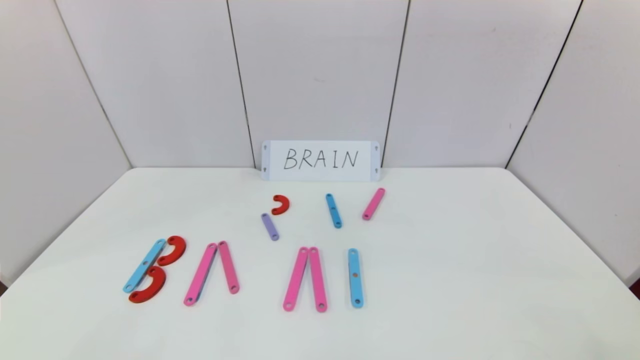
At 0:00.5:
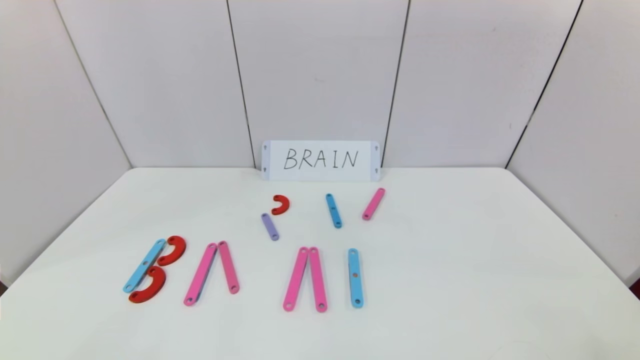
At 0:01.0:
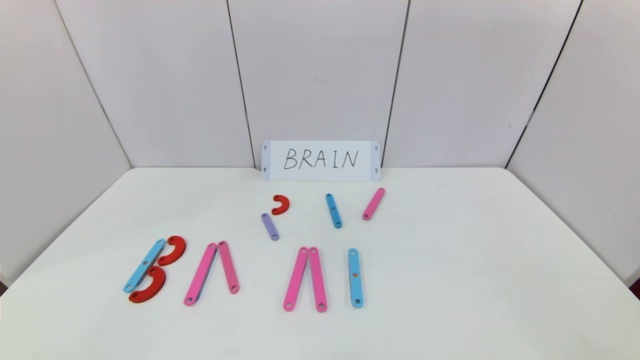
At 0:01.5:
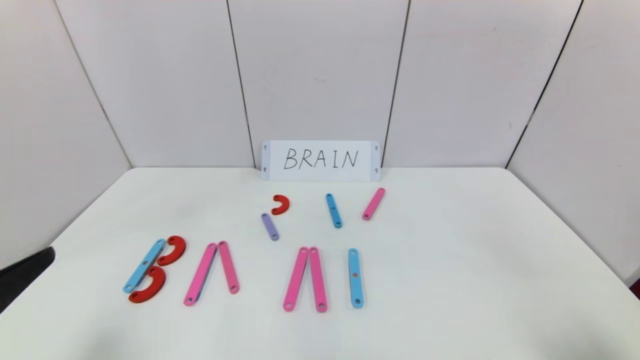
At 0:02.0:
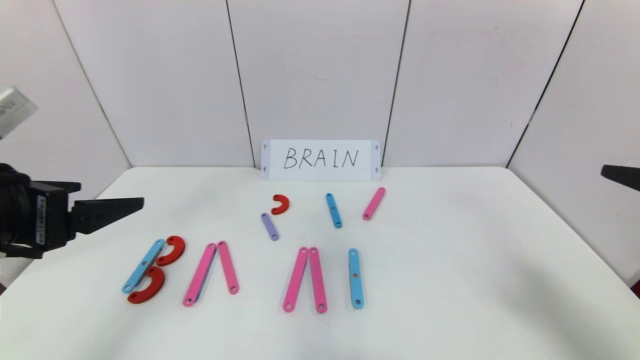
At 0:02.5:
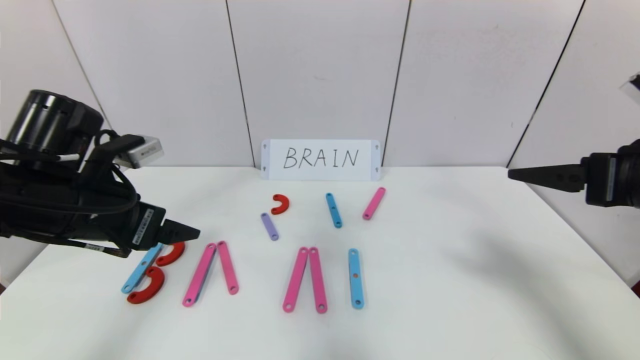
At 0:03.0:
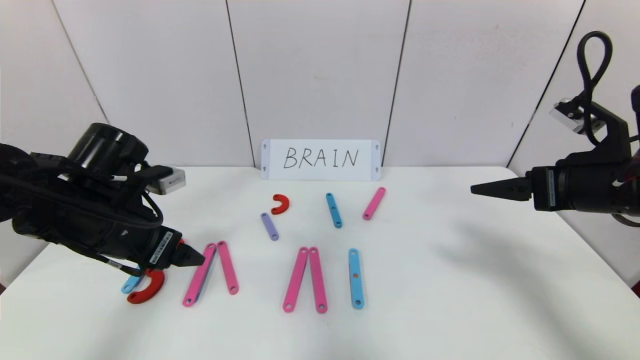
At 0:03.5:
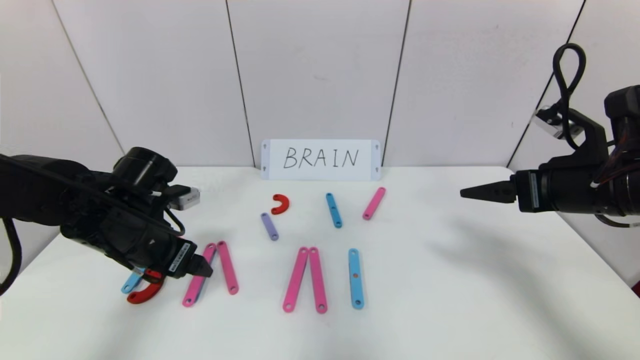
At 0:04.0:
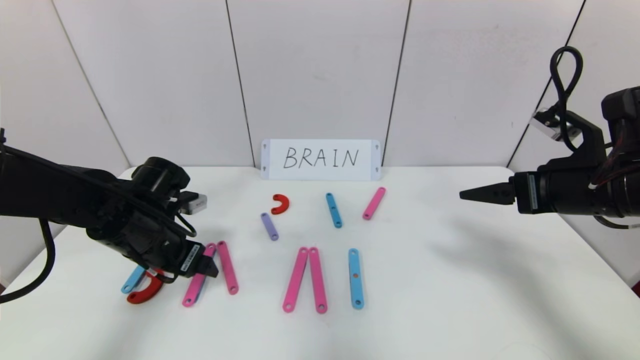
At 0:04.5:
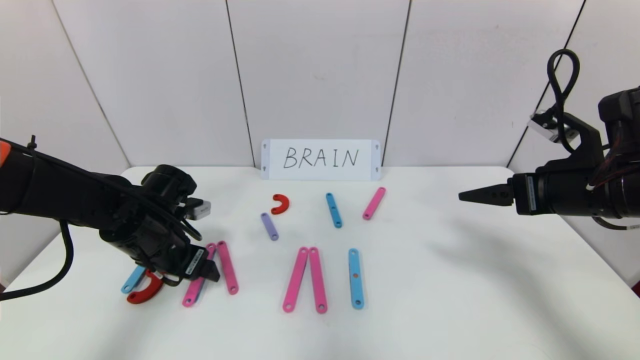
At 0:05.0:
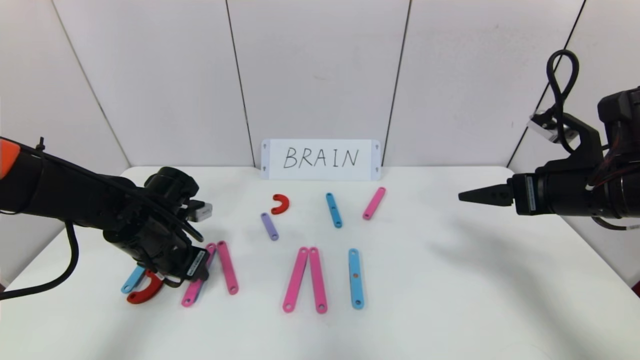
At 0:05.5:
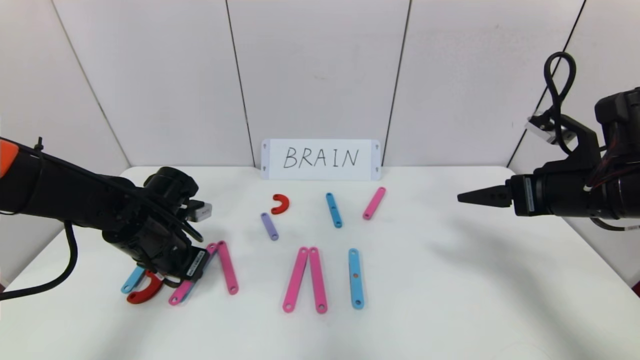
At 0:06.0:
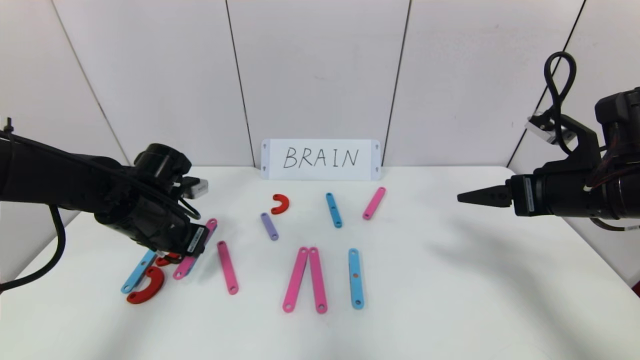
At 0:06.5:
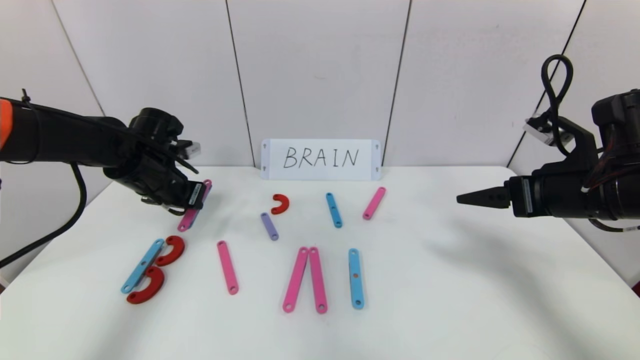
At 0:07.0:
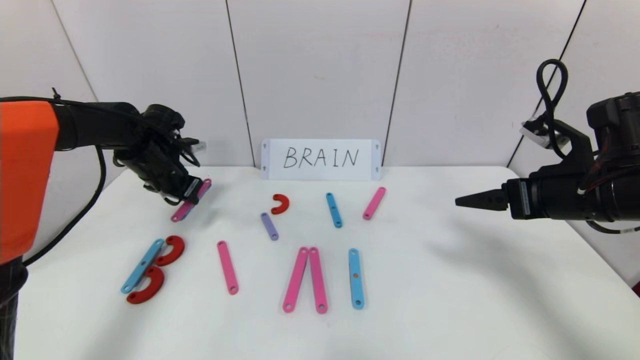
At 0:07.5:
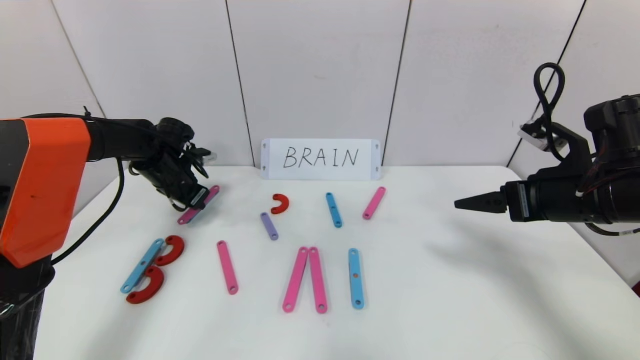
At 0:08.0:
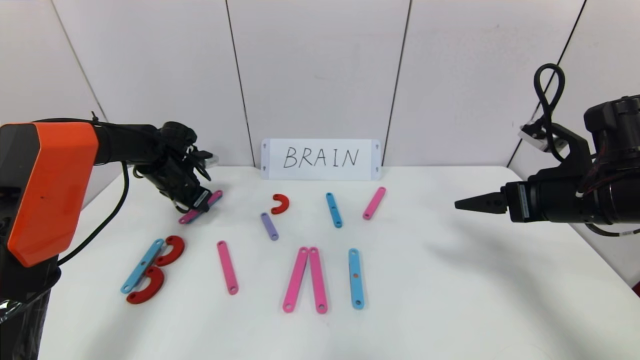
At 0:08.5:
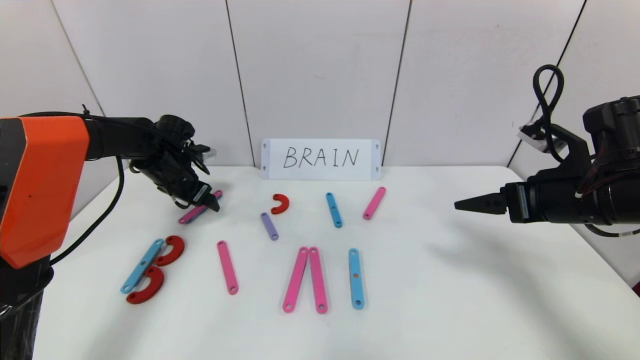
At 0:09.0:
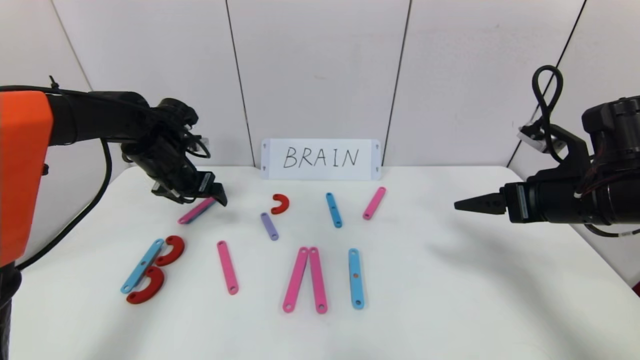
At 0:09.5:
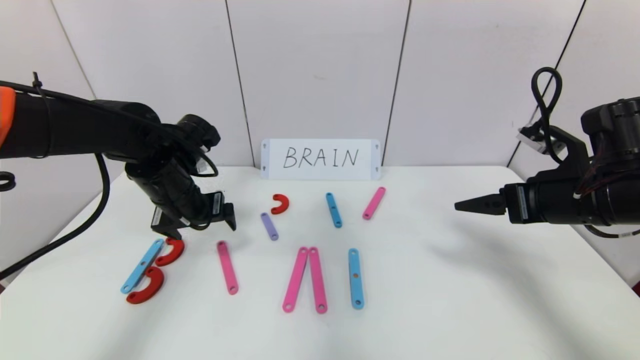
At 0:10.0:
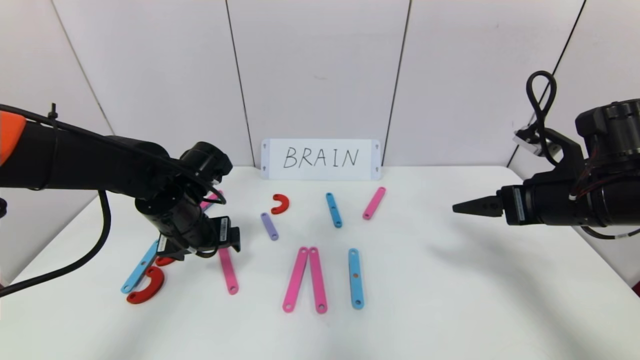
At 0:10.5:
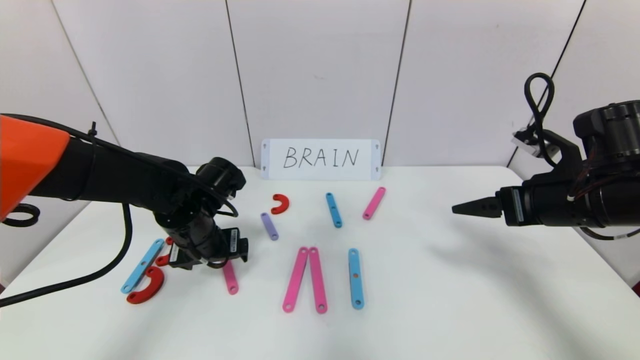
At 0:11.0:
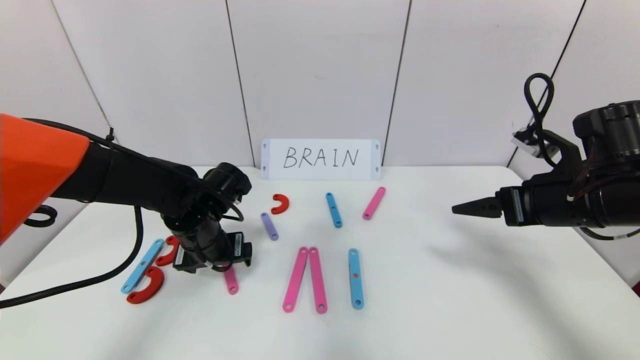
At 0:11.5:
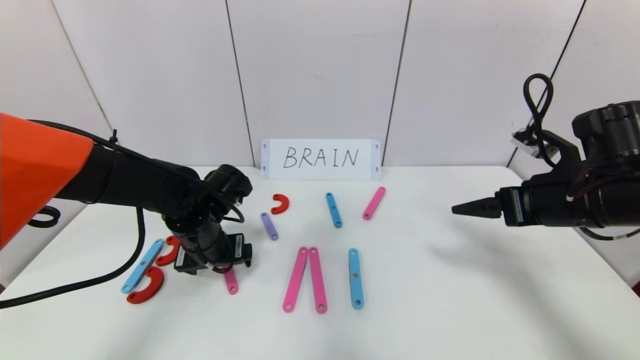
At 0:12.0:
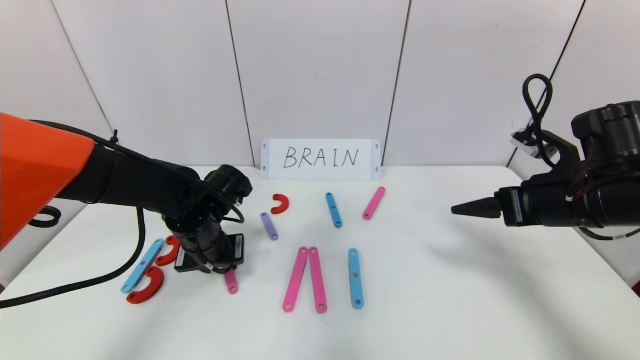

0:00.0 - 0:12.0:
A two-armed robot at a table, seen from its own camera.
Task of the whole recording: rearrange the word baai as brain.
0:00.0 - 0:02.0: The two grippers go roughly 25 cm upward and forward.
0:02.0 - 0:04.0: The right gripper goes roughly 15 cm forward and downward; the left gripper travels downward and forward by roughly 20 cm.
0:04.0 - 0:06.0: The left gripper closes its fingers.
0:06.0 - 0:08.0: The left gripper heads forward, covering about 15 cm.
0:08.0 - 0:10.0: The left gripper moves backward and to the right, roughly 20 cm, and opens up.
0:10.0 - 0:12.0: The left gripper closes up.

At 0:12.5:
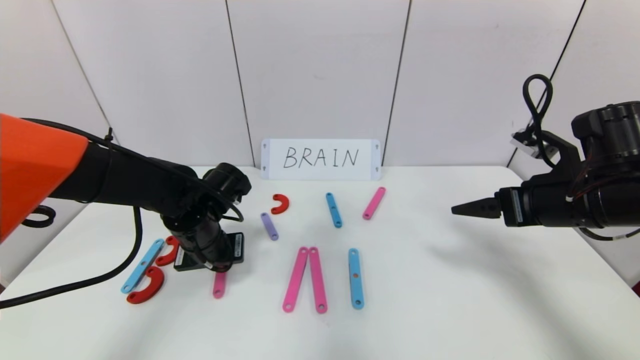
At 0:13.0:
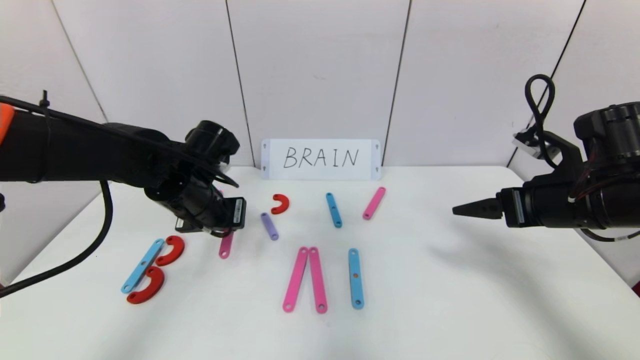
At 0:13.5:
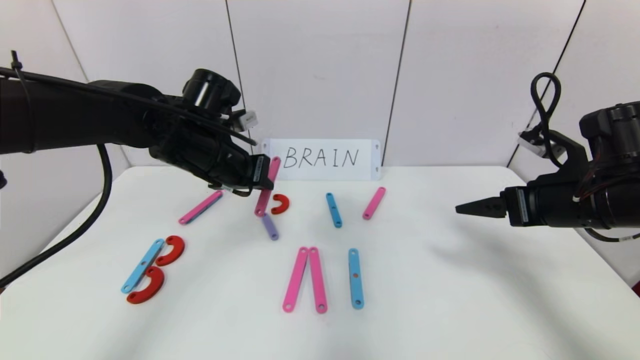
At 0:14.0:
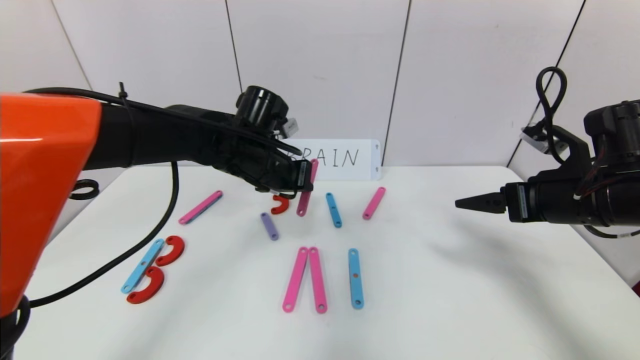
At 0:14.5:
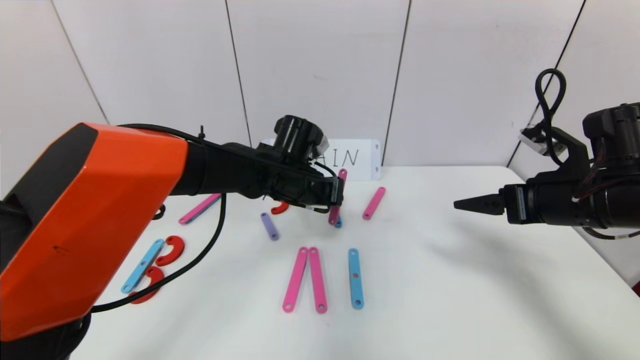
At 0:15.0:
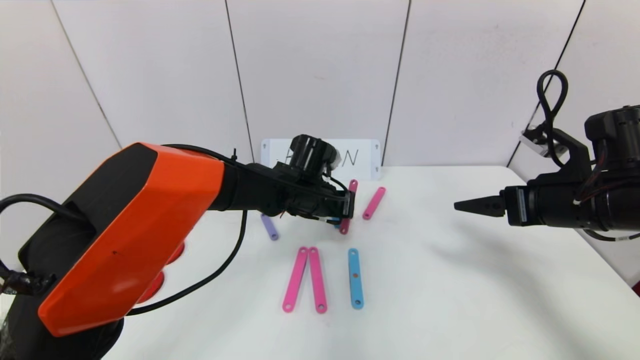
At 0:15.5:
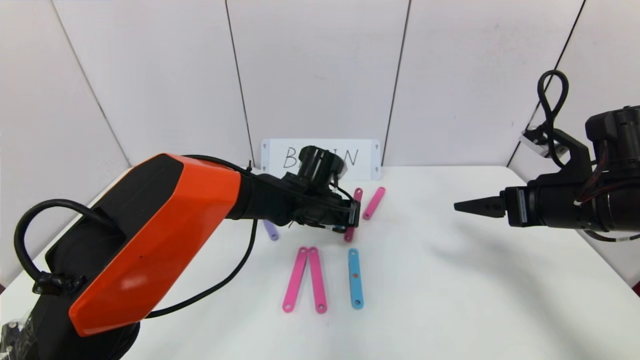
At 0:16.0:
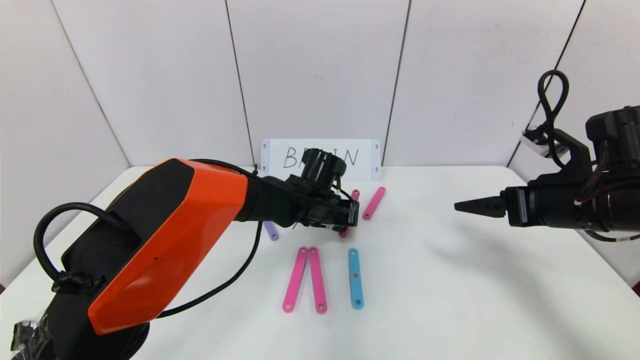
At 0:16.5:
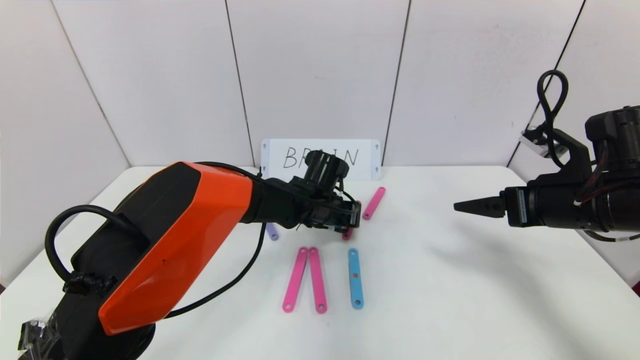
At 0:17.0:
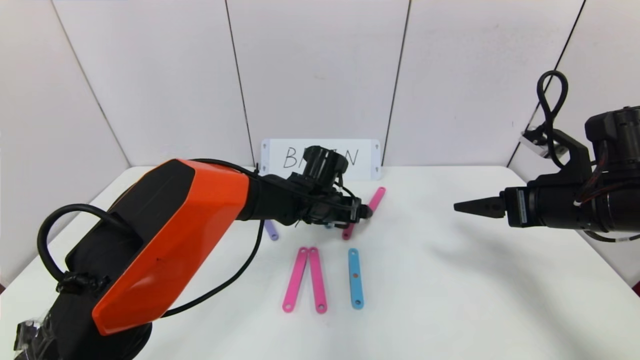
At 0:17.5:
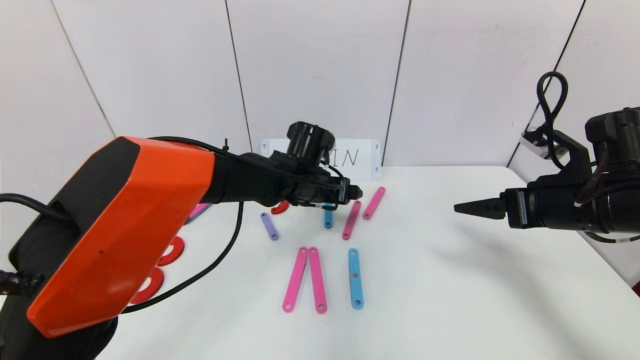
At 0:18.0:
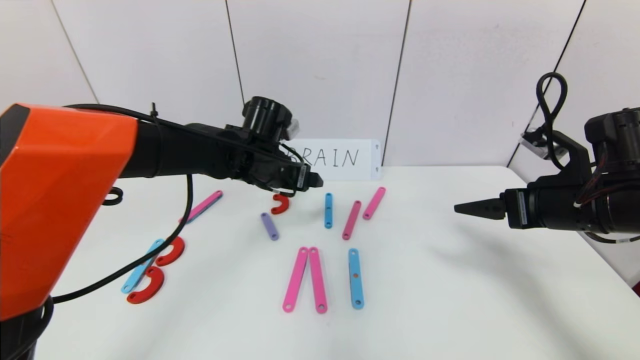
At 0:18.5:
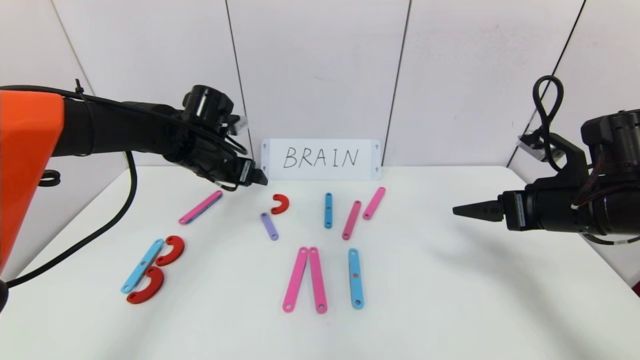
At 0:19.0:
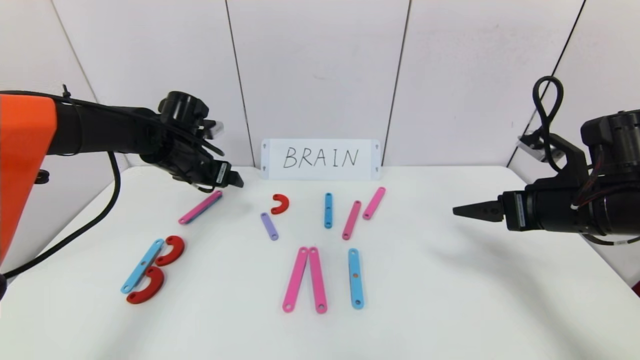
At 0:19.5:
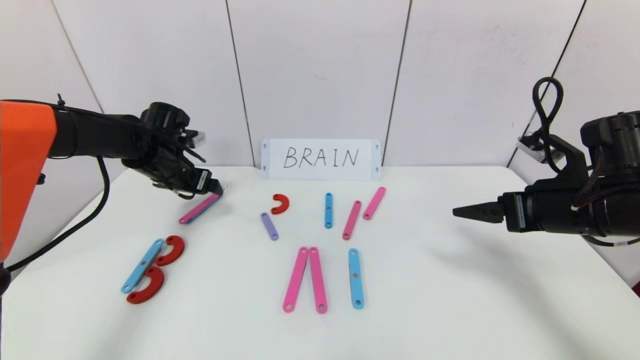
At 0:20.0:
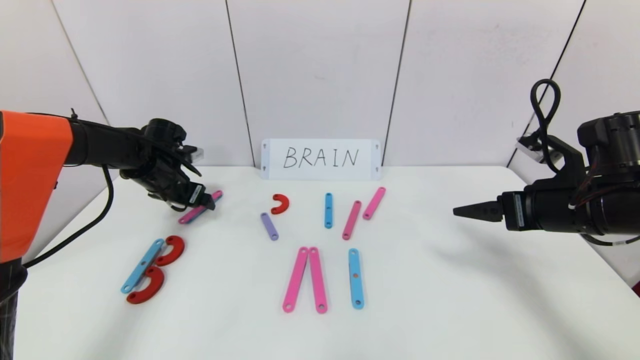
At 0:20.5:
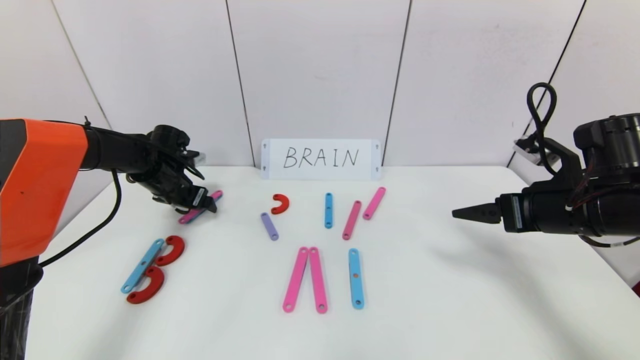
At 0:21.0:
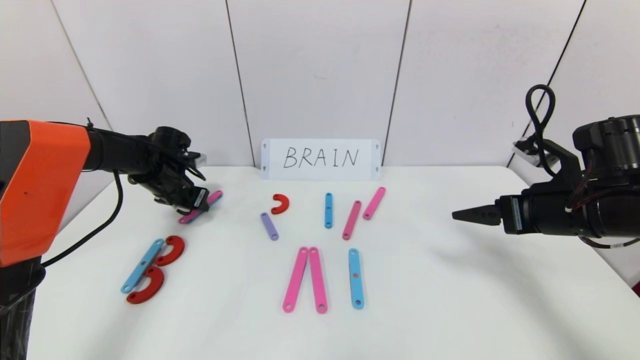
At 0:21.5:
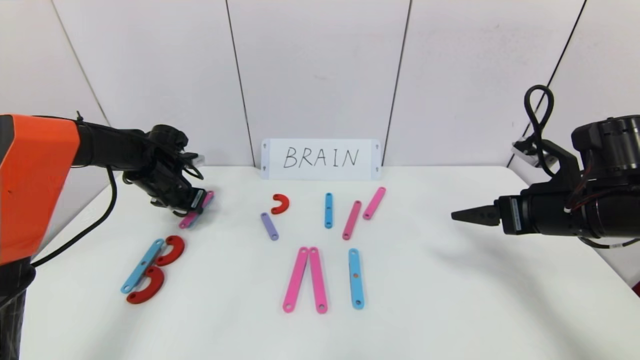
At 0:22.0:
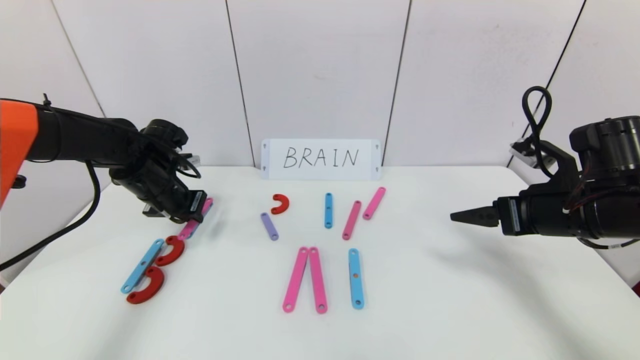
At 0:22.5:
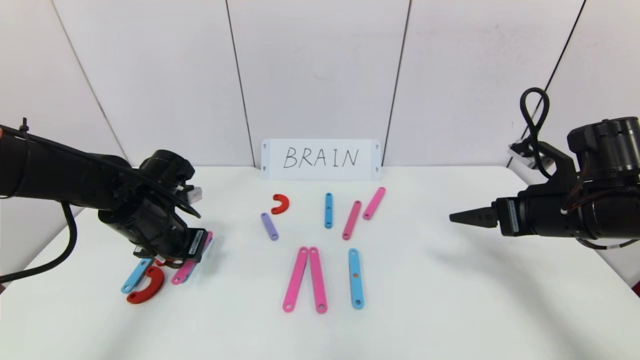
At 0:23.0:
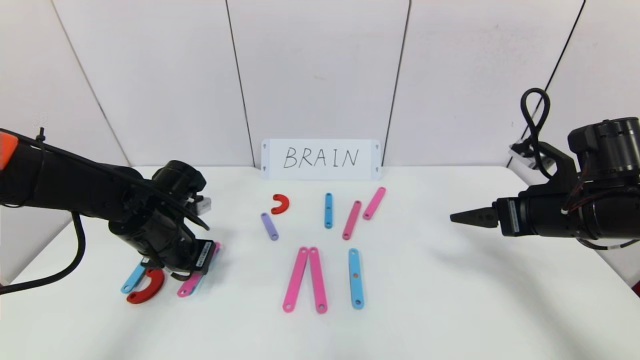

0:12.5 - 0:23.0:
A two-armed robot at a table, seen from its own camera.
Task of the whole recording: rearrange the word baai as brain.
Step, 0:12.5 - 0:16.5: Disassemble the second character A.
0:12.5 - 0:14.5: The left gripper heads to the right and forward, covering about 15 cm.
0:14.5 - 0:16.5: The left gripper moves downward, roughly 5 cm.
0:16.5 - 0:19.0: The left gripper goes approximately 25 cm to the left, and opens its fingers.
0:19.0 - 0:21.0: The left gripper goes some 10 cm downward and to the left, and closes its fingers.
0:21.0 - 0:23.0: The left gripper goes approximately 15 cm backward and to the right.
